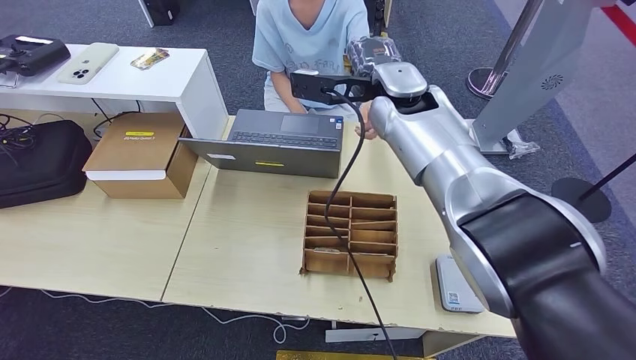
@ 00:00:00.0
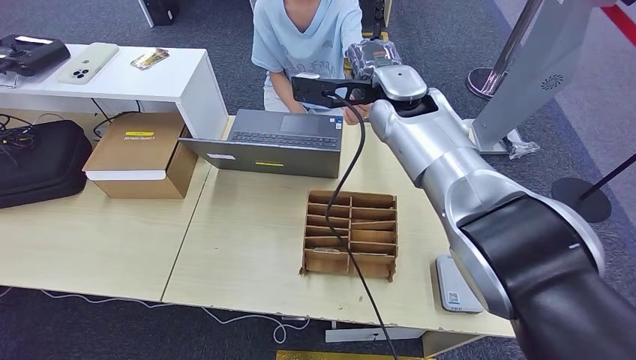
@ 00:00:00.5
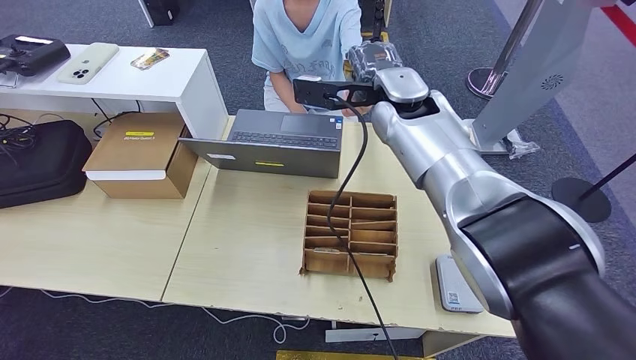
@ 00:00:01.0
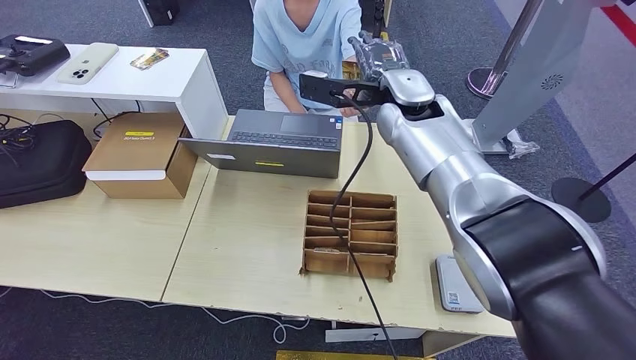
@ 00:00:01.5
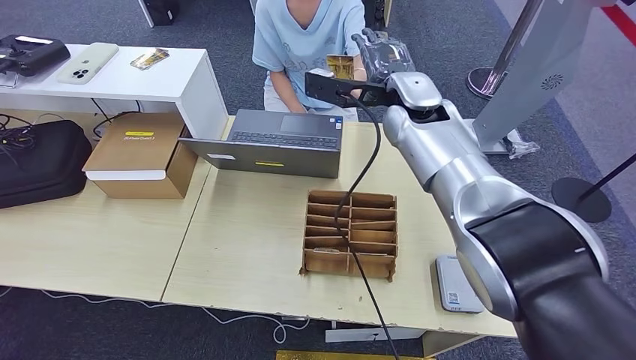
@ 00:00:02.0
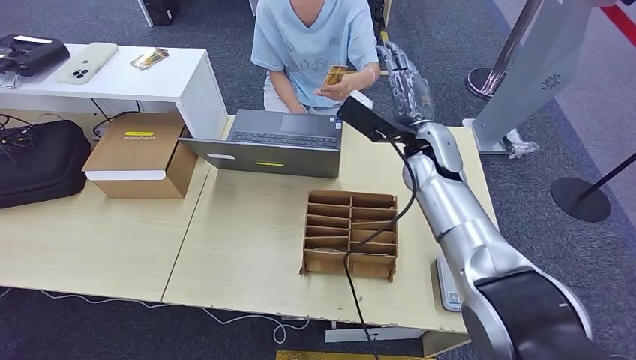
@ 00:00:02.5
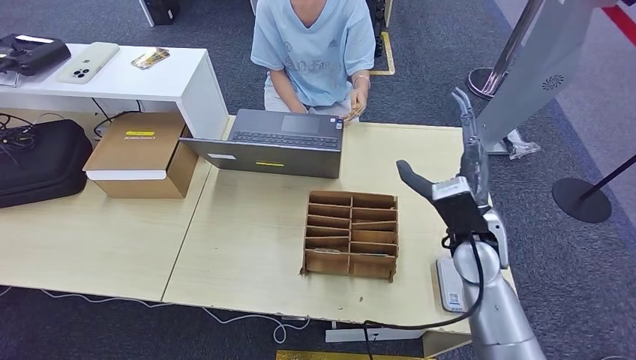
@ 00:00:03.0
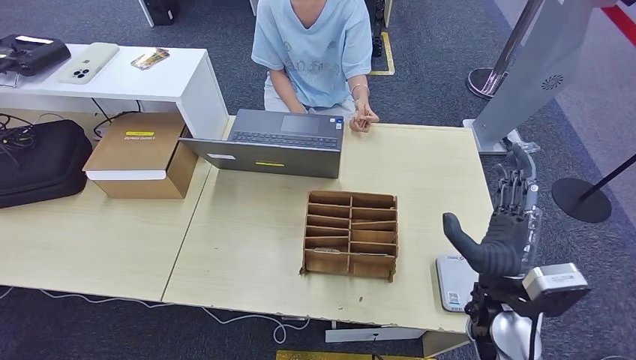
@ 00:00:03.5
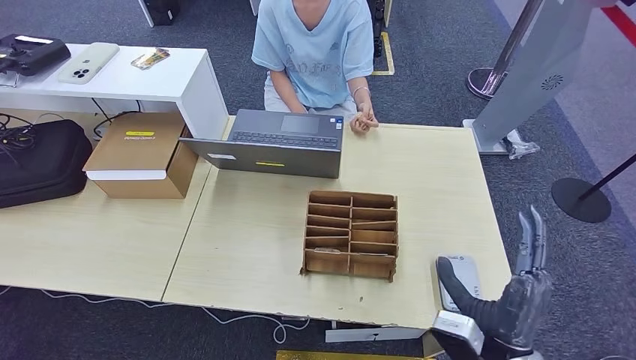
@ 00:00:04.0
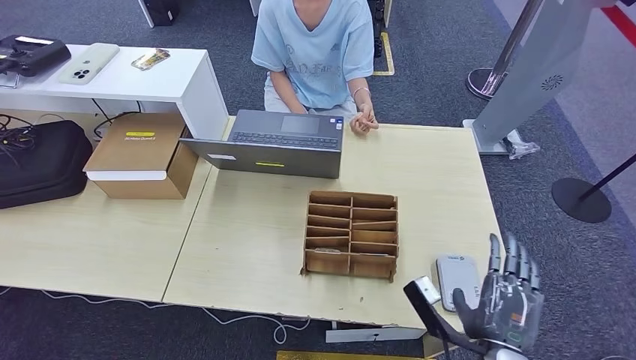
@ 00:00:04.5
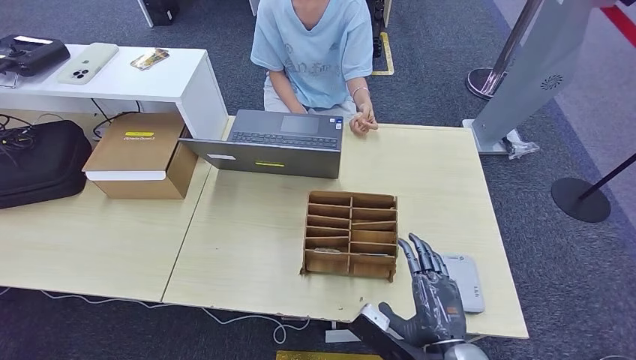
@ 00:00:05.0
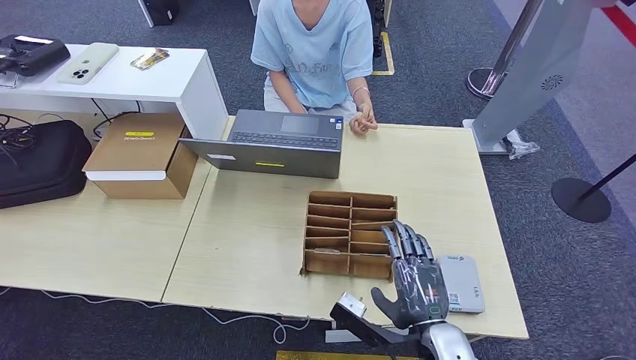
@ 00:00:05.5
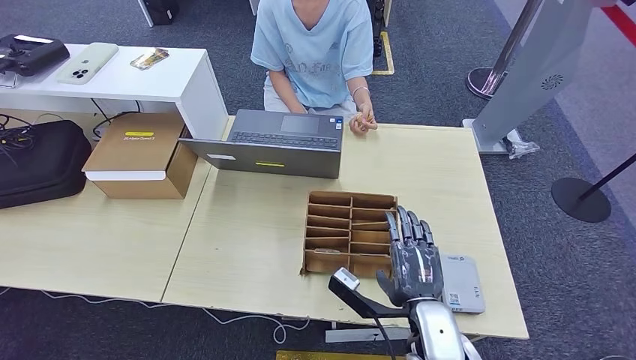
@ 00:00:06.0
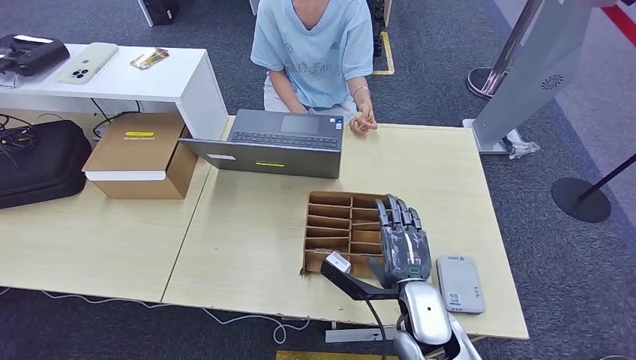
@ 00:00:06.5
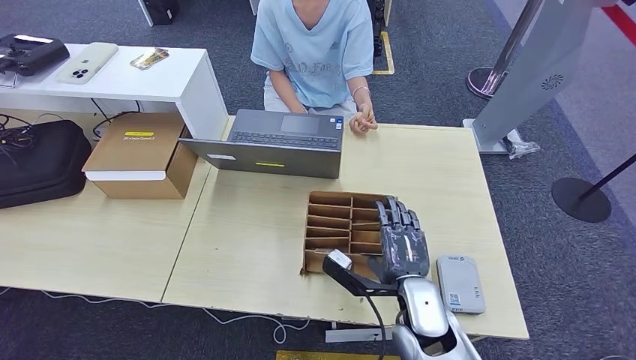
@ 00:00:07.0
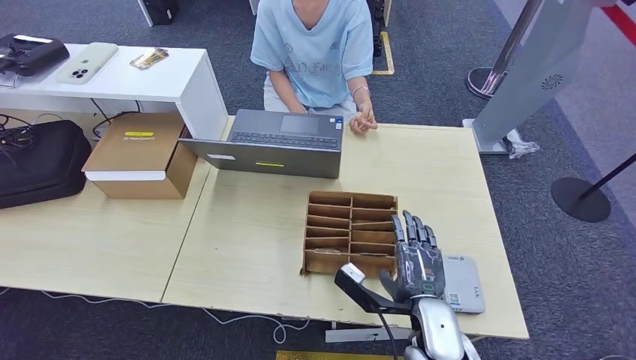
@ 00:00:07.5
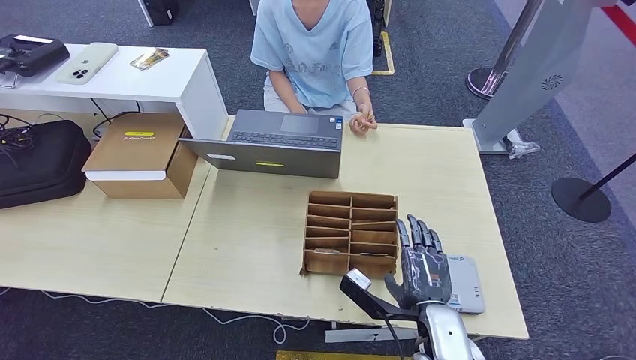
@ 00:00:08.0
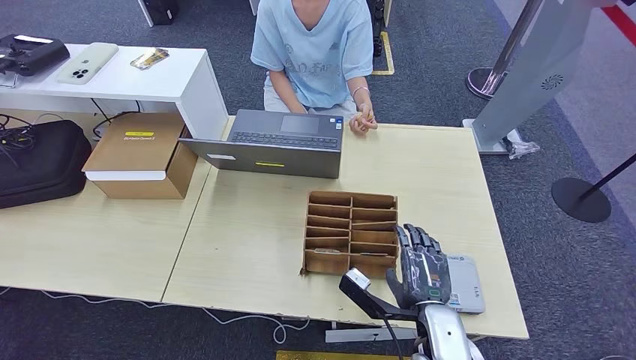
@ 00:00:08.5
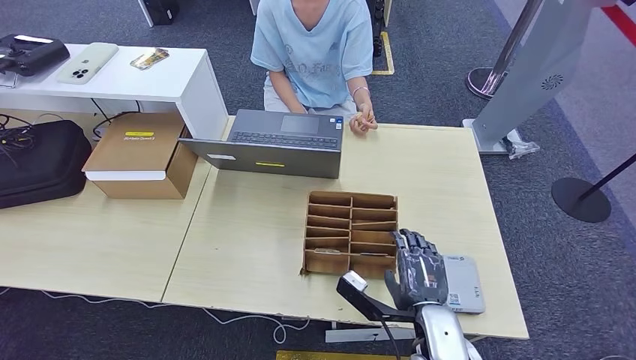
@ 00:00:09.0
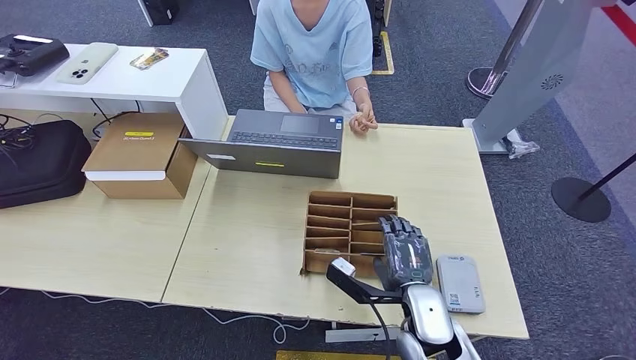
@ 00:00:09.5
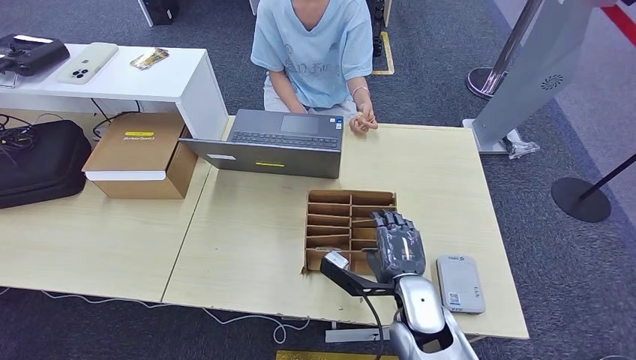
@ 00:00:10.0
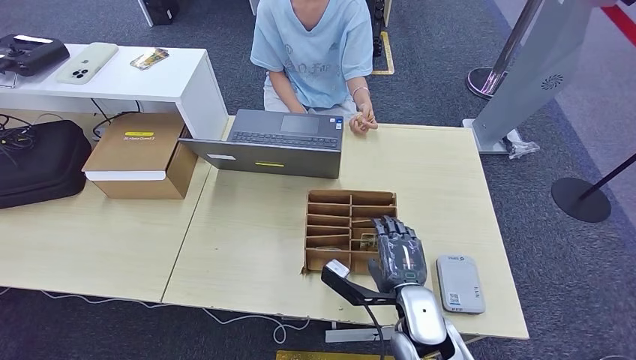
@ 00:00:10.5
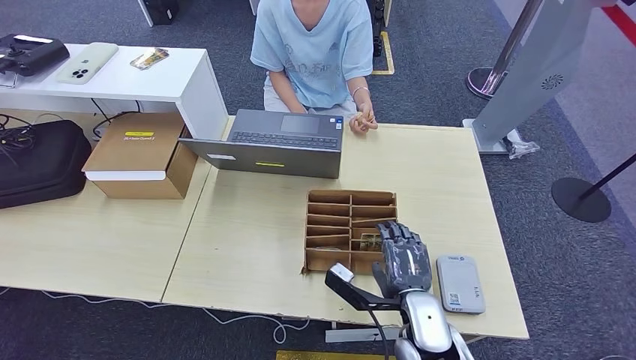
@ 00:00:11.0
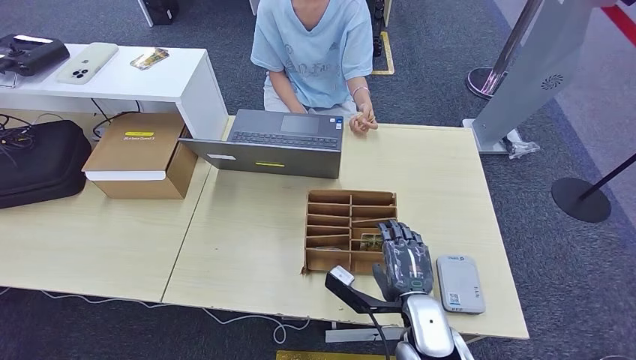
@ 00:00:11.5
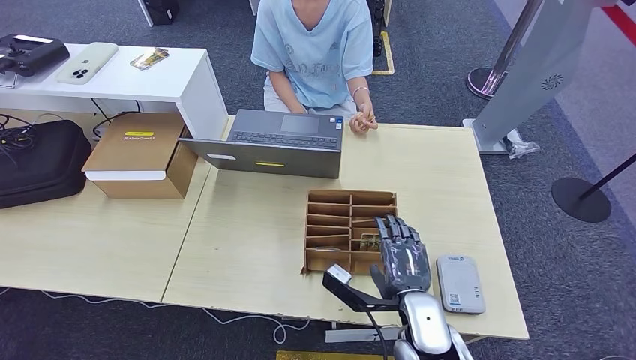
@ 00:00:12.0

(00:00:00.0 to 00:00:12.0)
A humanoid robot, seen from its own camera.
Step, 00:00:00.0 - 00:00:02.0: Hand the ID card to the person.
00:00:00.0 - 00:00:02.0: The hands move only a little.
00:00:02.0 - 00:00:04.0: The right hand shifts roughly 40 cm backward and downward.
00:00:04.0 - 00:00:06.0: The right hand travels to the left by some 5 cm.
00:00:06.0 - 00:00:08.0: The hands move only a little.
00:00:08.0 - 00:00:10.0: The right hand moves about 5 cm.
00:00:10.0 - 00:00:12.0: There are only small adjustments of the hands.

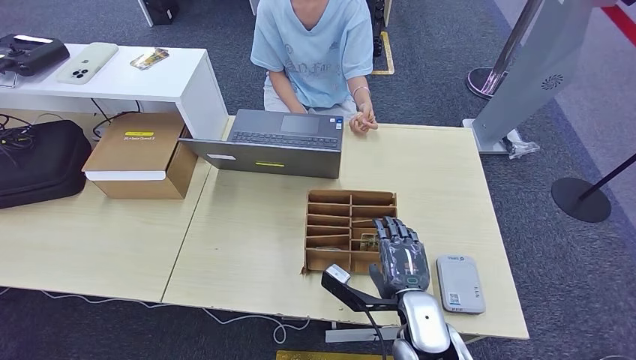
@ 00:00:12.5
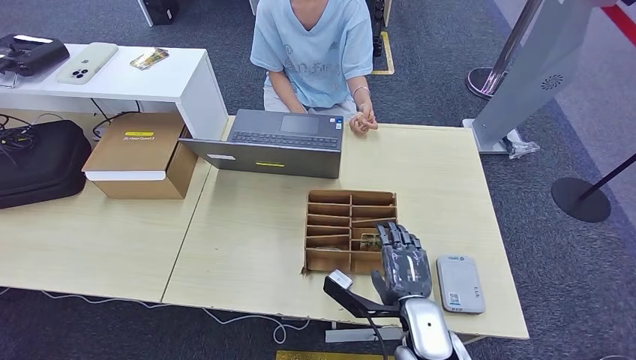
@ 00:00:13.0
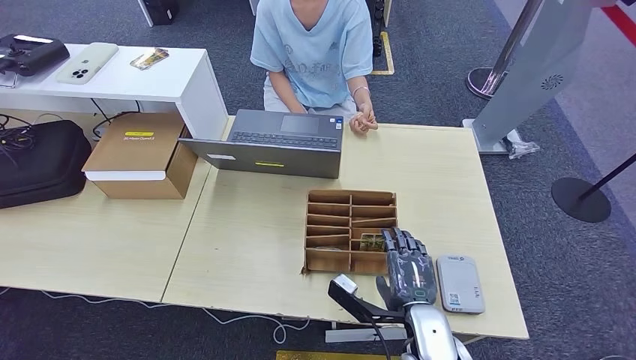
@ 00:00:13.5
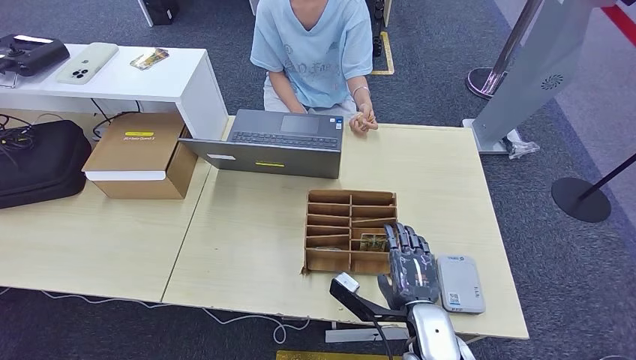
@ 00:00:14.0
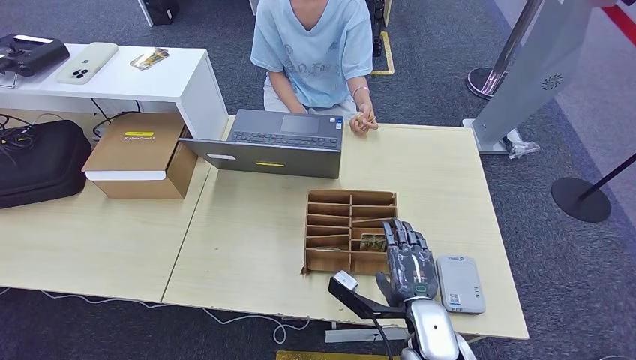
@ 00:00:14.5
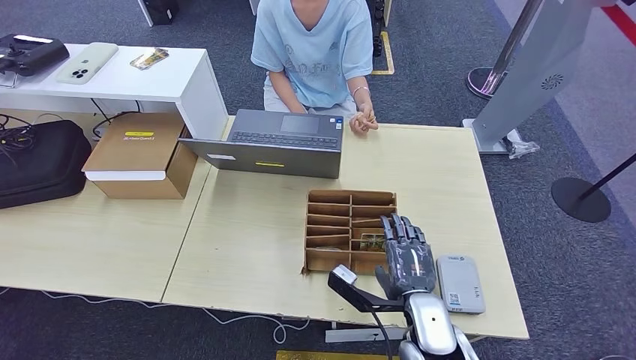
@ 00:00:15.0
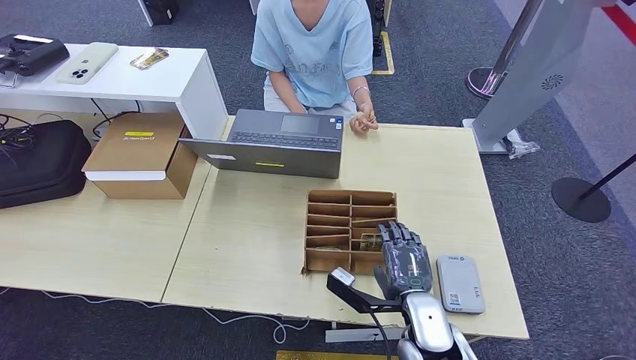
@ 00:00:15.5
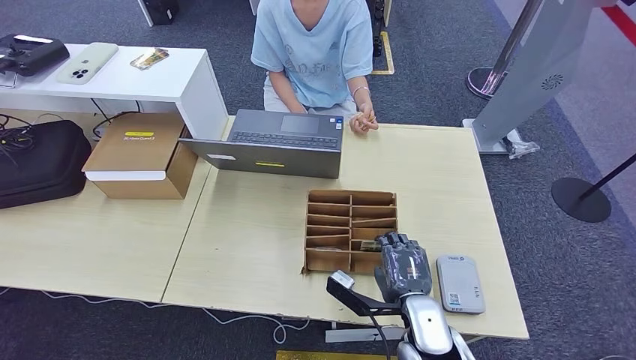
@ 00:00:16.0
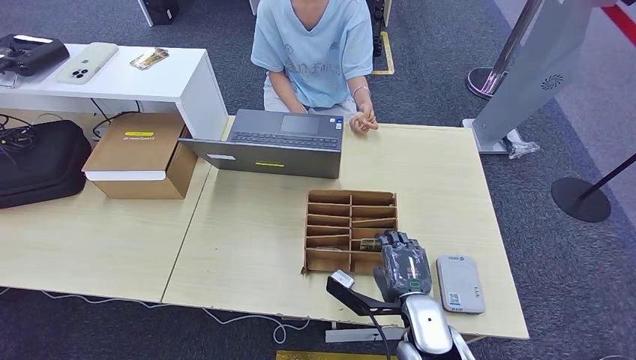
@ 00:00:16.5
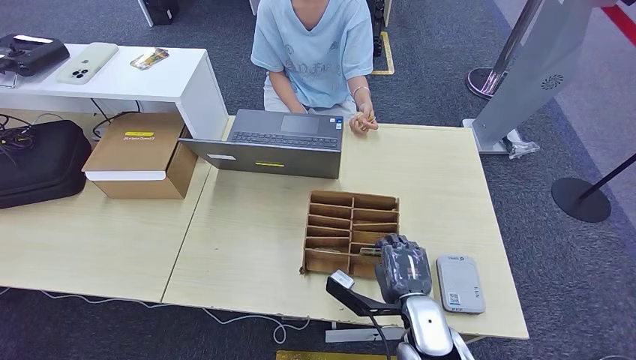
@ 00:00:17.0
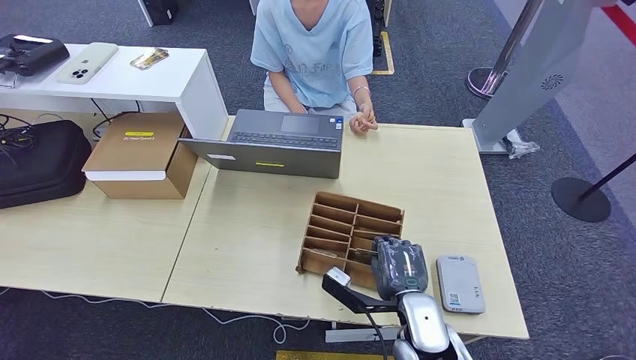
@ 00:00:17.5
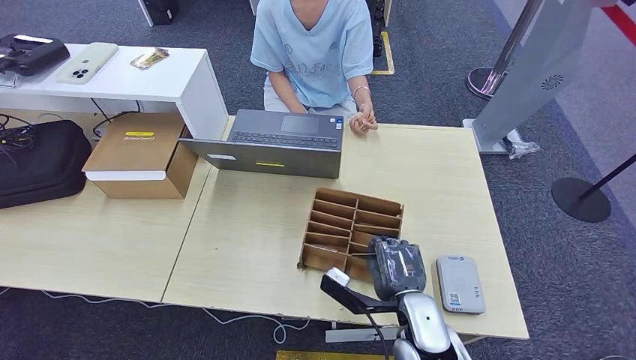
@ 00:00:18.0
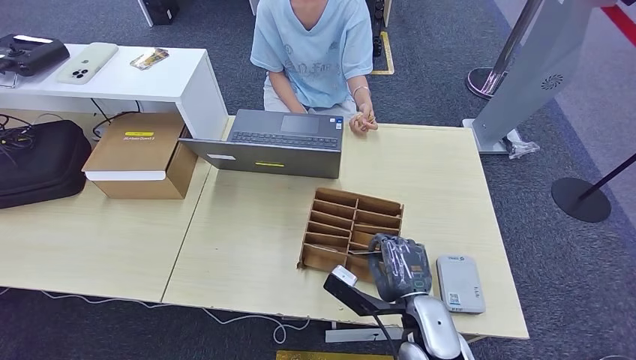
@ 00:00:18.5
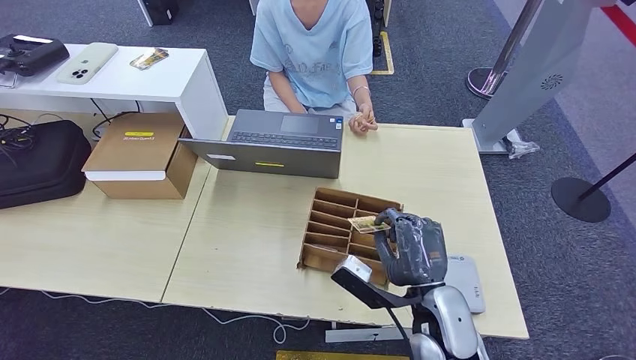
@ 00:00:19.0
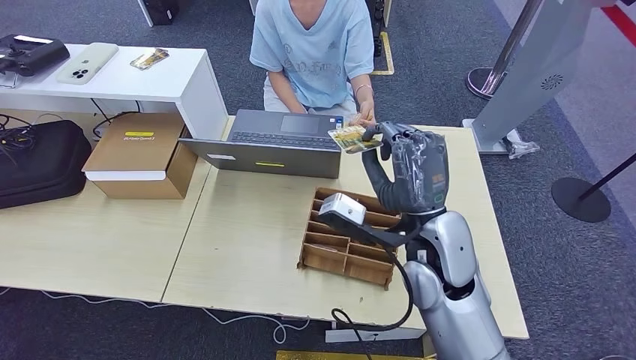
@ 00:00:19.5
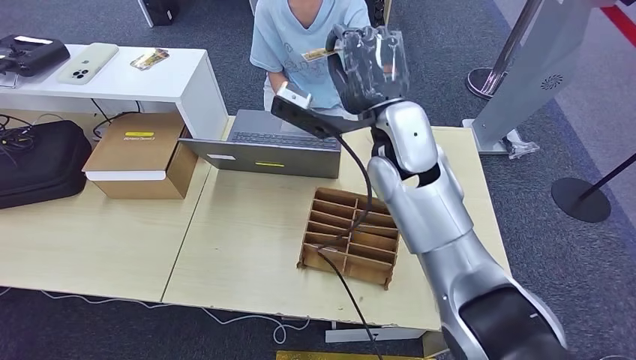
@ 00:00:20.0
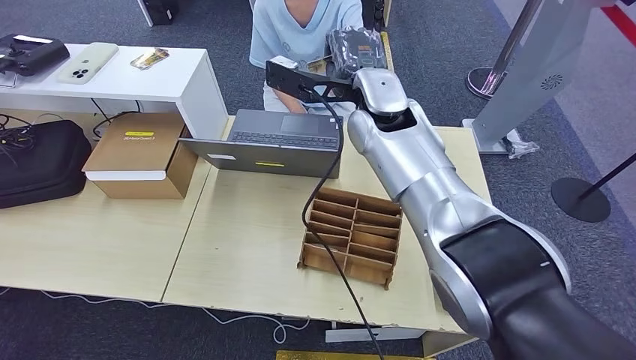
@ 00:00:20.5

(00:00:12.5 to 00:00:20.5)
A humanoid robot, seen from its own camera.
Step, 00:00:12.5 - 00:00:18.5: Pick up the room key from the key card box.
Step, 00:00:19.0 - 00:00:20.5: Hand the room key to the person.
00:00:12.5 - 00:00:18.5: The hands make only small movements.
00:00:18.5 - 00:00:20.5: The right hand is displaced forward and upward by roughly 35 cm.
